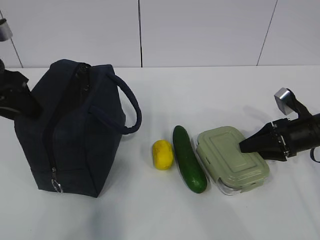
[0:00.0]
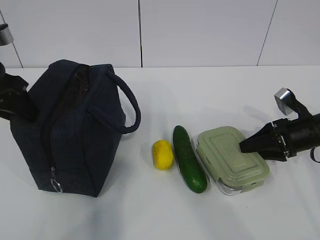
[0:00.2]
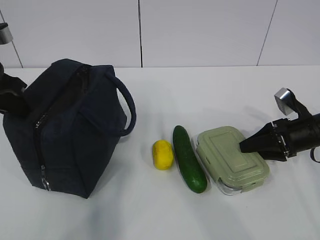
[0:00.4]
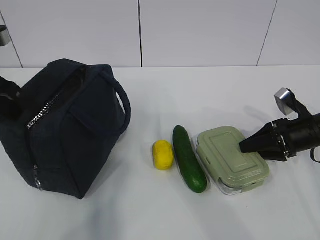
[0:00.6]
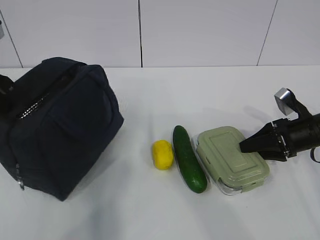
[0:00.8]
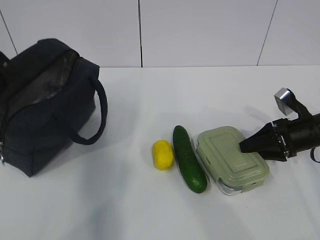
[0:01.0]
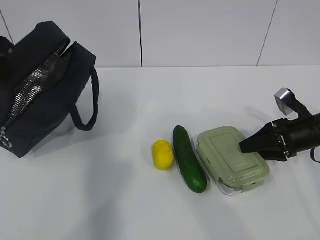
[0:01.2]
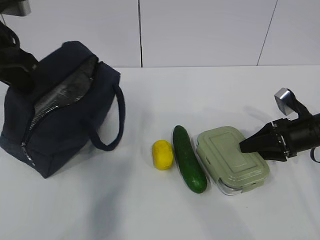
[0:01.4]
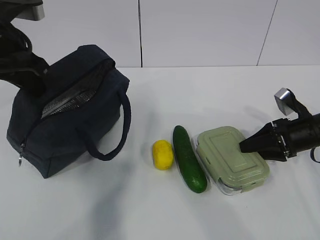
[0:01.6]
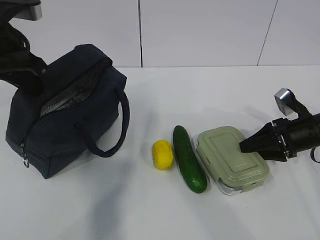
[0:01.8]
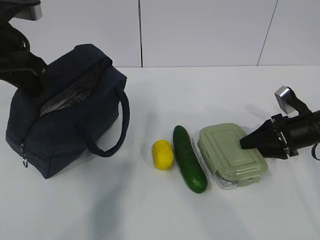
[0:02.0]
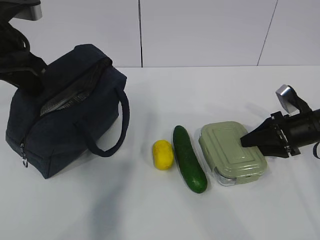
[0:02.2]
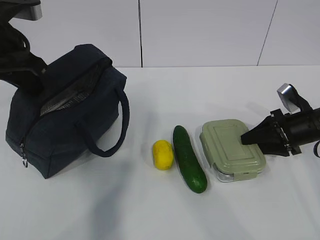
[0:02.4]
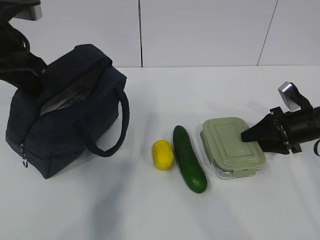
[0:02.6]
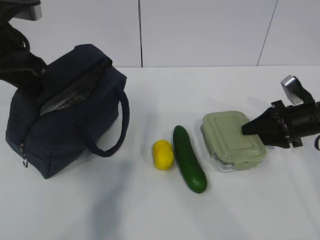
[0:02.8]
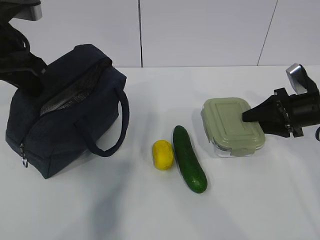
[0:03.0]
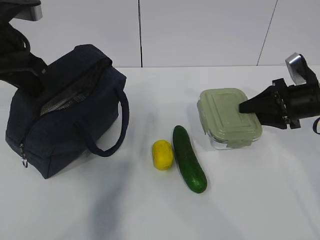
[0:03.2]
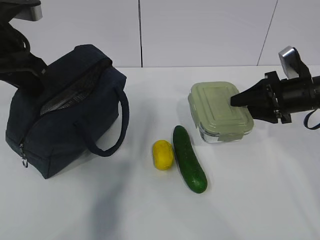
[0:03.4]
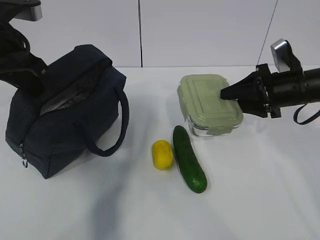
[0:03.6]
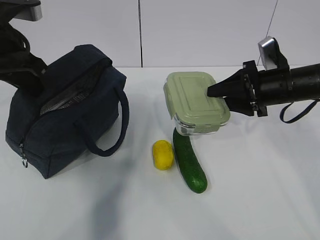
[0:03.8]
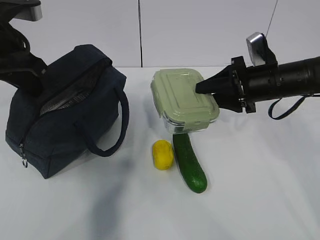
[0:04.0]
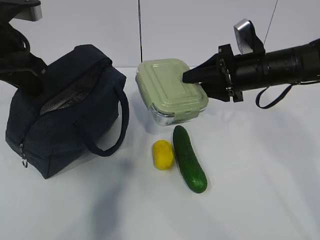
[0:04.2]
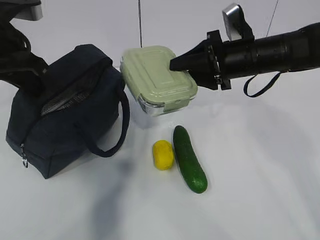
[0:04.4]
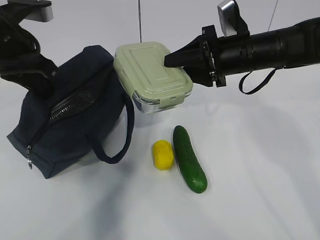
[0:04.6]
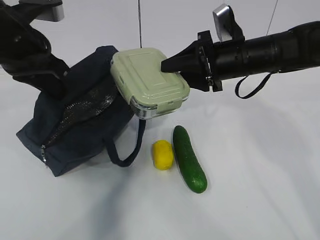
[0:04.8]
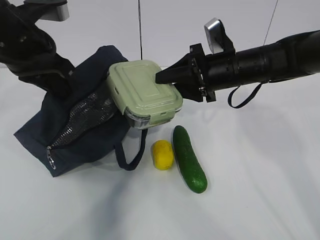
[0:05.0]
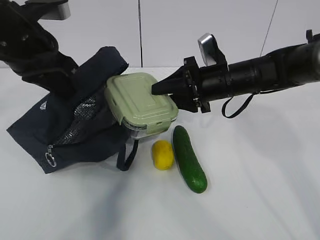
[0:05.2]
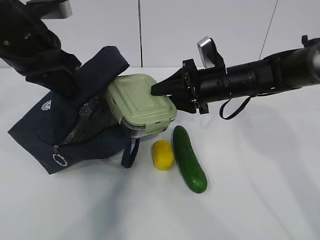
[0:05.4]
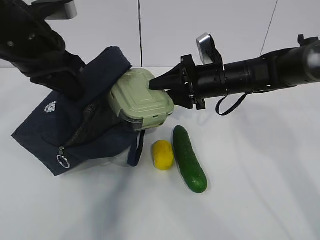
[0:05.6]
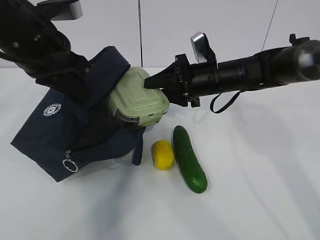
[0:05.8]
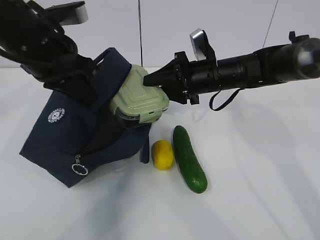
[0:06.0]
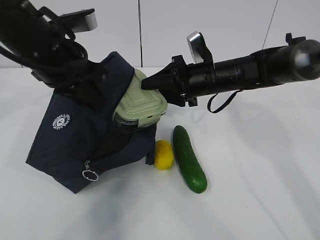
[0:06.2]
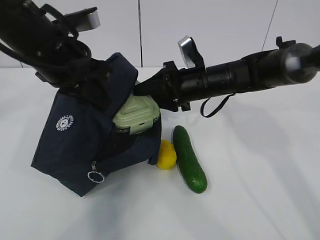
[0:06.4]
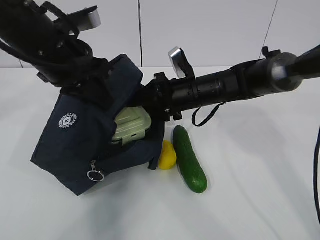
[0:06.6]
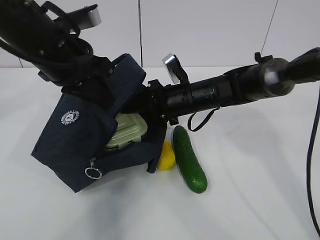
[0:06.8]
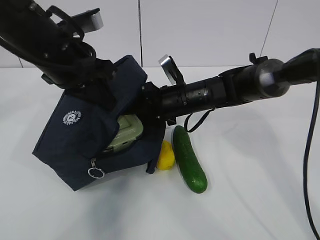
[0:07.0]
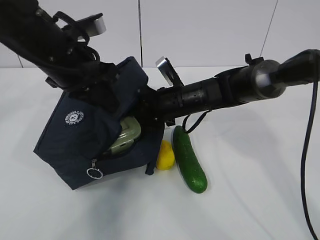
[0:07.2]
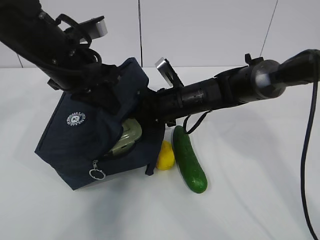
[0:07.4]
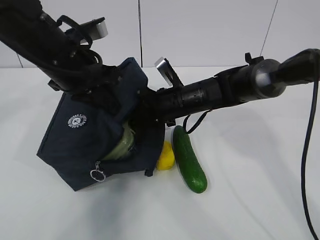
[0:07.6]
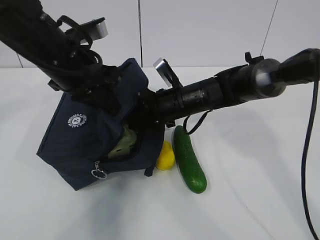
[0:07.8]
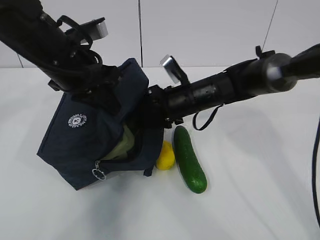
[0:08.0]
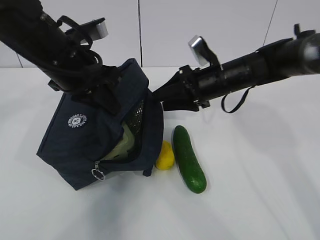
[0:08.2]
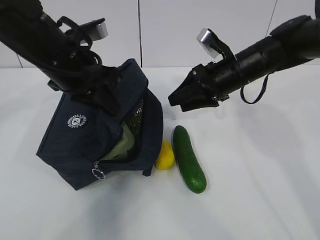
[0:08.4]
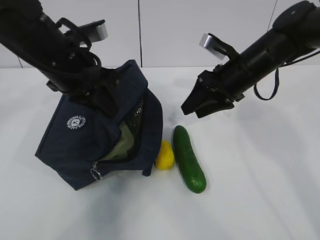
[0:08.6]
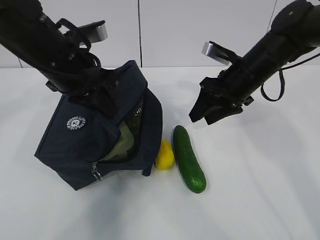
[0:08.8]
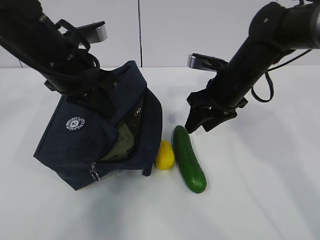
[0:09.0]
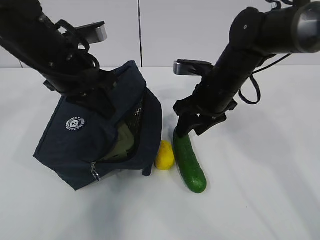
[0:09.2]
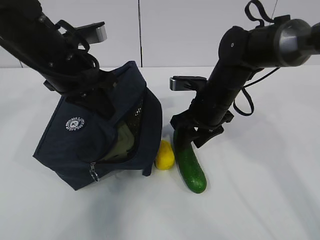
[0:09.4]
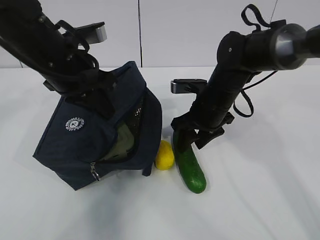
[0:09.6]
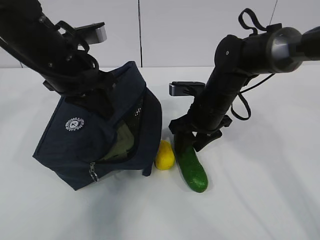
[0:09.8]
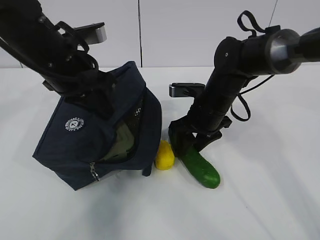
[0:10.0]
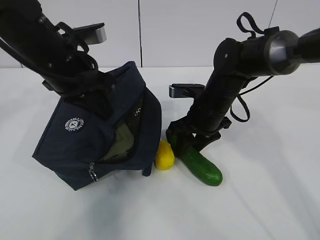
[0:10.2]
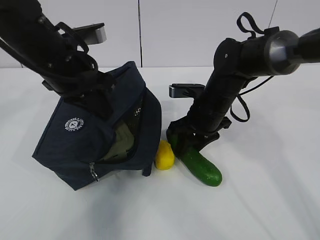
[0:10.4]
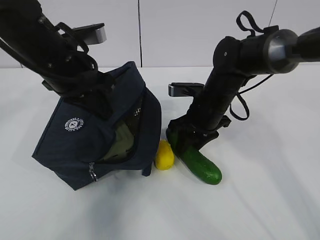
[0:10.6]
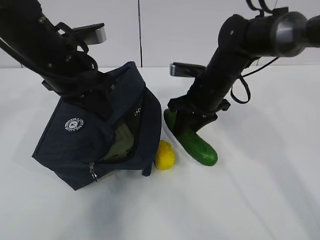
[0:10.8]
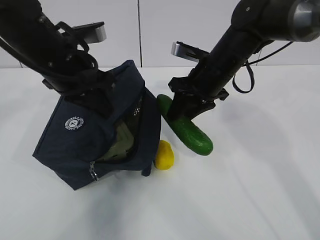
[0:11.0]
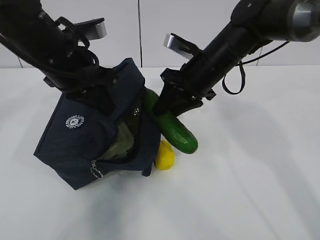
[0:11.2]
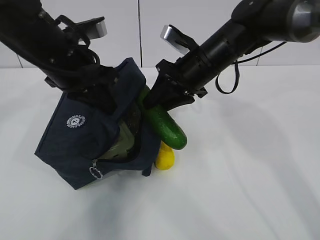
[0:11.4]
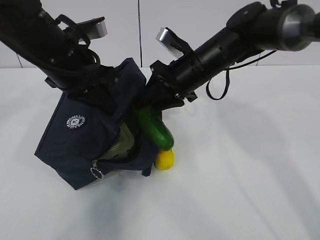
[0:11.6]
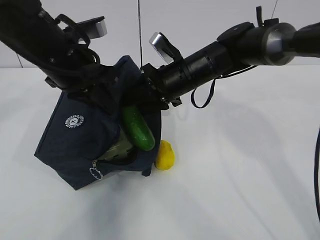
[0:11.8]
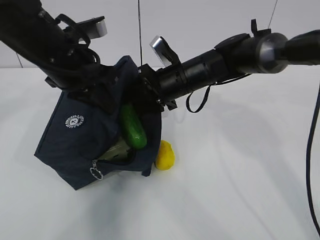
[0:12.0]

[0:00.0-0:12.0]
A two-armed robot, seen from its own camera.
Step, 0:00.4 to 0:08.0: Place the box into the package with the right gripper.
Step, 0:08.2 to 0:10.6: Grasp the cucumber with the right gripper.
0:00.0 to 0:01.6: The left gripper changes place by some 5 cm, and closes.
0:01.6 to 0:03.0: The grippers move only a little.
0:03.0 to 0:04.4: The right gripper is displaced to the left and upward by approximately 15 cm.
0:04.4 to 0:06.0: The left gripper goes roughly 5 cm to the right. Meanwhile the right gripper goes approximately 5 cm downward.
0:06.0 to 0:07.6: The right gripper travels to the left by about 5 cm.
0:07.6 to 0:09.0: The right gripper is displaced to the right and upward by about 10 cm.
0:09.0 to 0:10.4: The right gripper is displaced downward by approximately 5 cm.
0:10.4 to 0:12.0: The right gripper ends up approximately 5 cm from where it was.

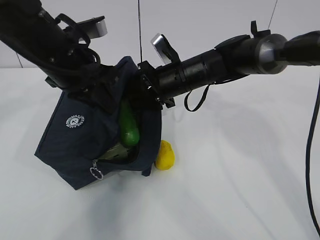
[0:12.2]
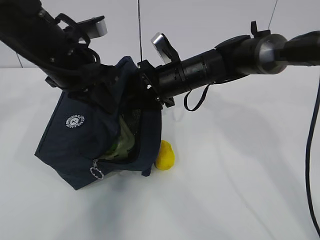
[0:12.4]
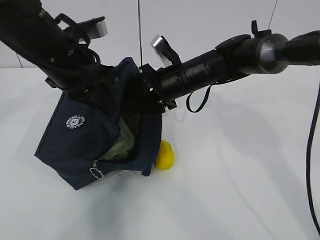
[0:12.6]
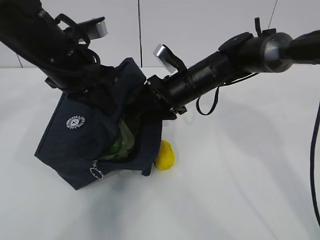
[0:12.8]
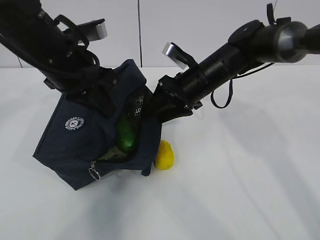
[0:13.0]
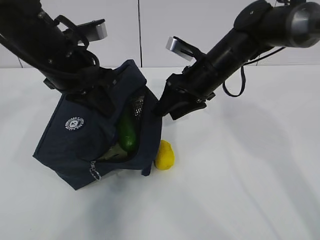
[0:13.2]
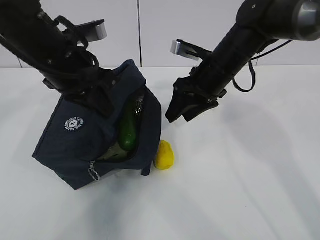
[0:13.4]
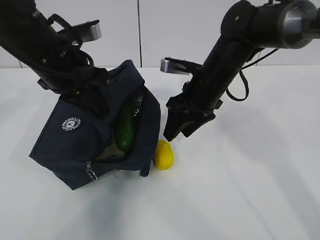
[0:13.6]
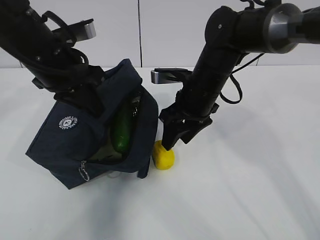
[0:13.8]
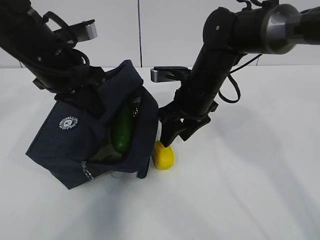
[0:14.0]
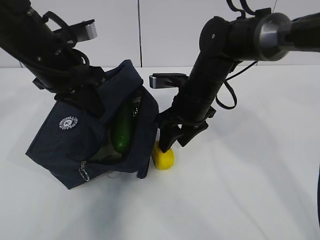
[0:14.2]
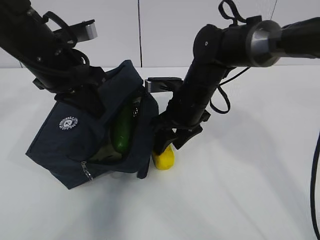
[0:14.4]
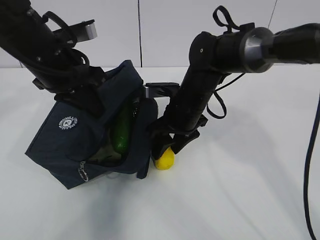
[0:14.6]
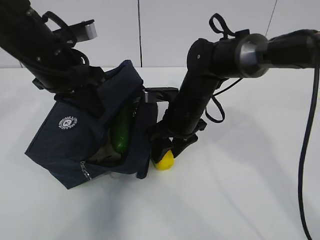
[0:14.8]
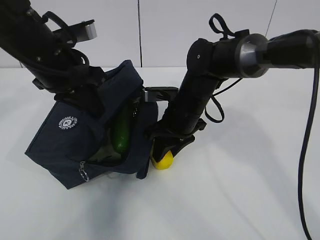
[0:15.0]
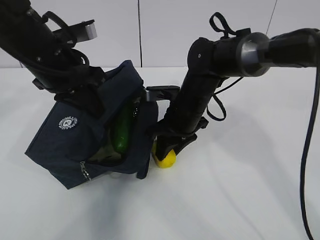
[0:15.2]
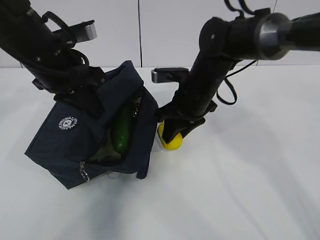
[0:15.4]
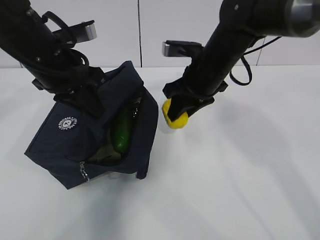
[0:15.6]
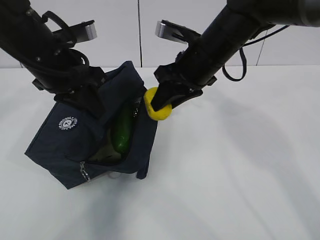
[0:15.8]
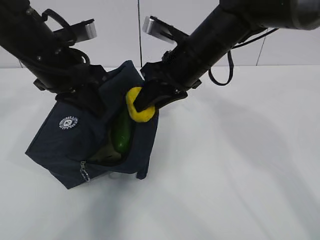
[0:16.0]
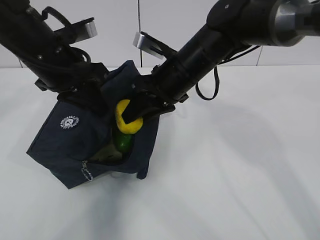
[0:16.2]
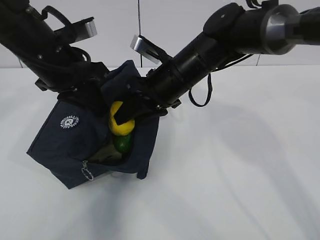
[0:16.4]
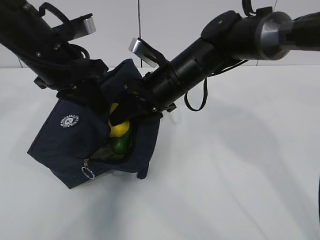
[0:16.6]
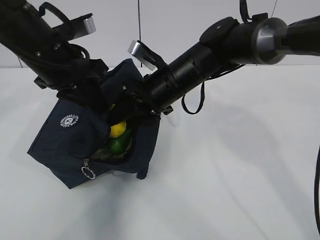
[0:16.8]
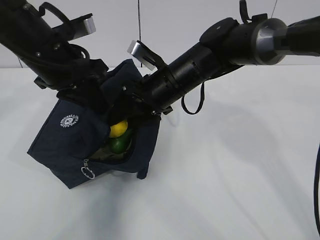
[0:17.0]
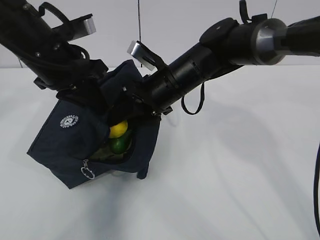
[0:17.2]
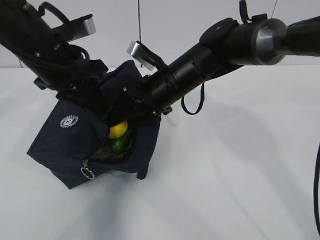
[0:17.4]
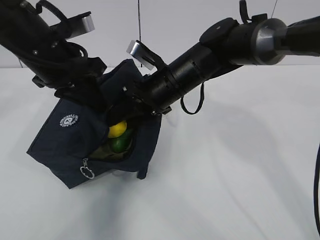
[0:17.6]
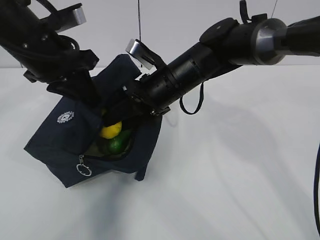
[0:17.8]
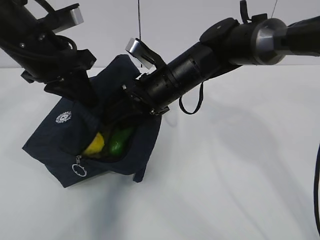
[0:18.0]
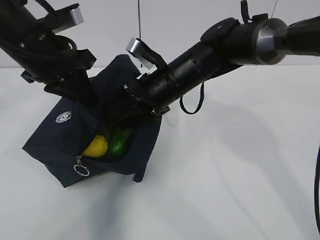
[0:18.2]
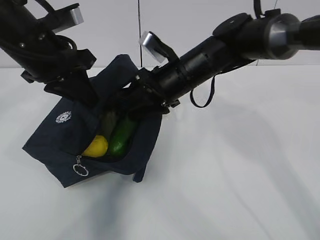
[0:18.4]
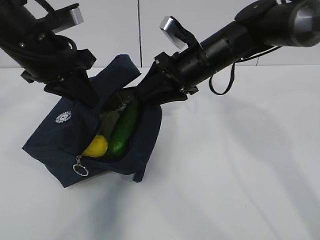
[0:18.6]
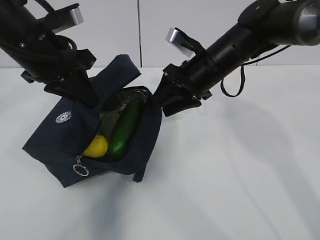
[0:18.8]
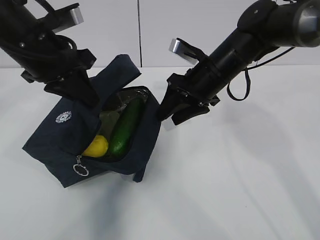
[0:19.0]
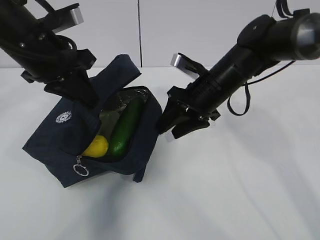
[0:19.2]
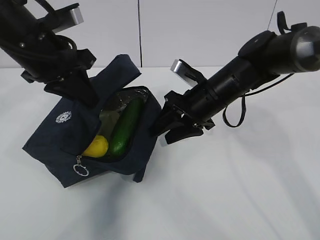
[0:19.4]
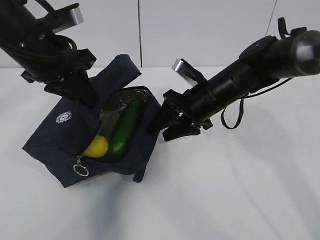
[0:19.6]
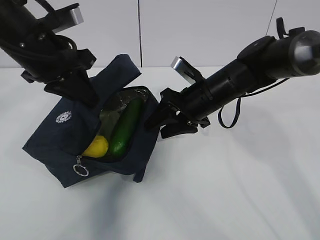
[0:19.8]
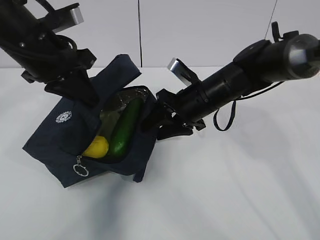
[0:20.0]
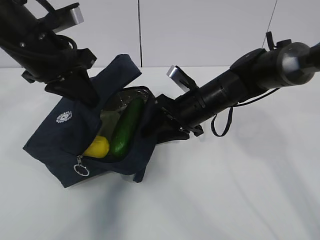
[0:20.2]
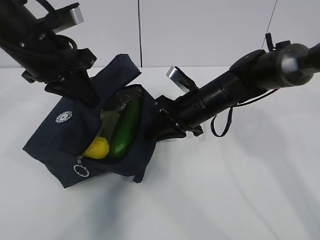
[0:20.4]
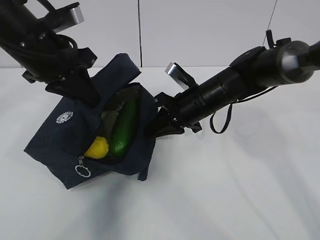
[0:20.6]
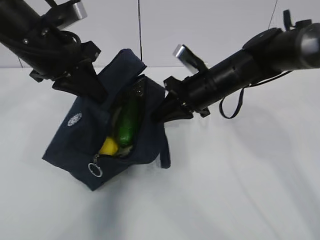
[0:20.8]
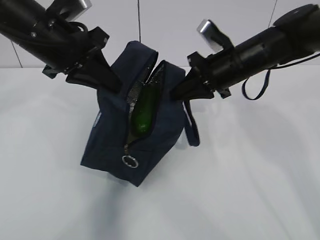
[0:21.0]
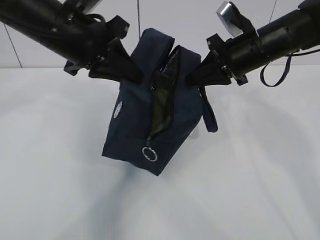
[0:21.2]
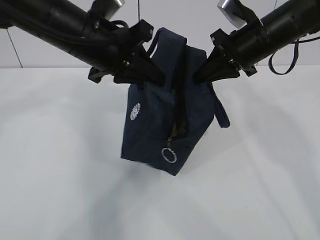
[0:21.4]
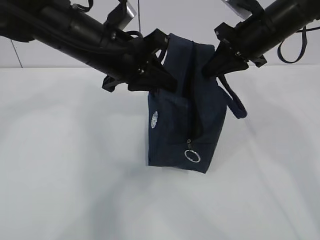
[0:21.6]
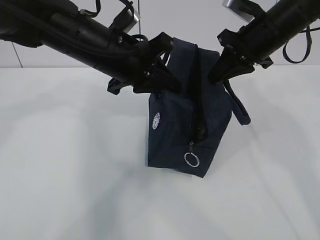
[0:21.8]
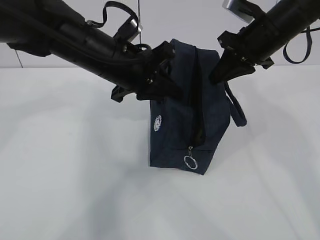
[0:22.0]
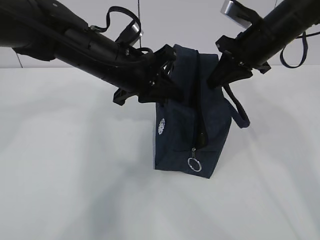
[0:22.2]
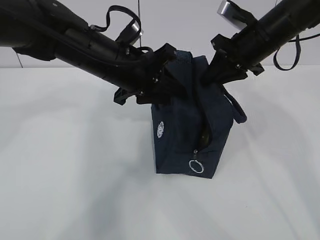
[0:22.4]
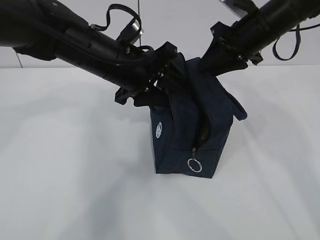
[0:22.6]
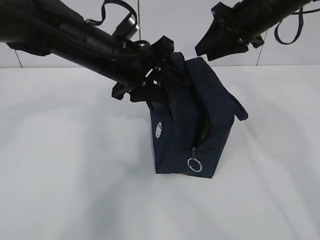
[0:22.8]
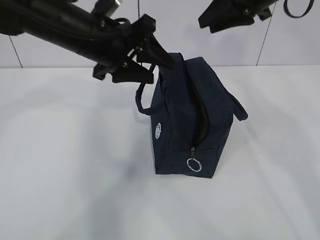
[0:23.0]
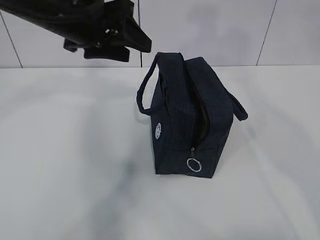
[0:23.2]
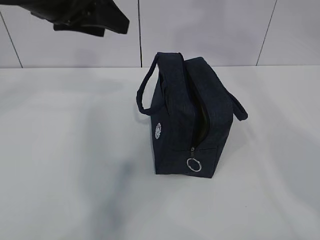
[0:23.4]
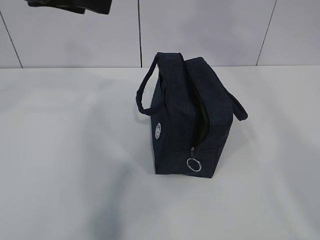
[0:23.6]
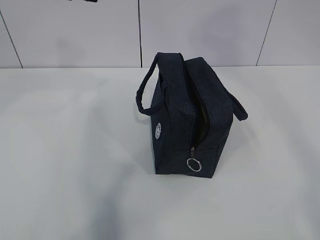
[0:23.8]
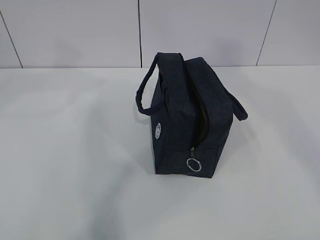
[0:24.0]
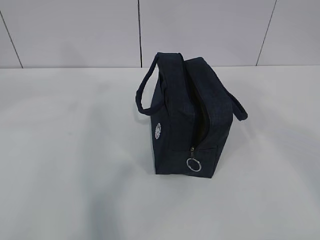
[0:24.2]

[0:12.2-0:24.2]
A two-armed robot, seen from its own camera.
Step, 0:13.2 to 0:14.8: Grasp the lemon with the right gripper.
Step, 0:15.0 to 0:18.6: Place the lemon into the package with the right gripper.
0:12.2 to 0:13.8: The right gripper shifts by about 5 cm.
0:13.8 to 0:15.2: The right gripper changes place by approximately 5 cm.
0:15.2 to 0:16.6: The right gripper goes approximately 5 cm upward.
0:16.6 to 0:18.2: The grippers make only small movements.
0:18.2 to 0:19.8: The right gripper is displaced to the right by some 5 cm.
0:19.8 to 0:21.2: The right gripper travels upward and to the right by roughly 10 cm, and closes.
0:21.2 to 0:22.6: The right gripper opens; the left gripper goes roughly 10 cm downward and to the right, and opens.
0:22.6 to 0:24.2: The right gripper moves backward and upward, about 40 cm. The left gripper heads upward, backward and to the left, covering roughly 25 cm.
